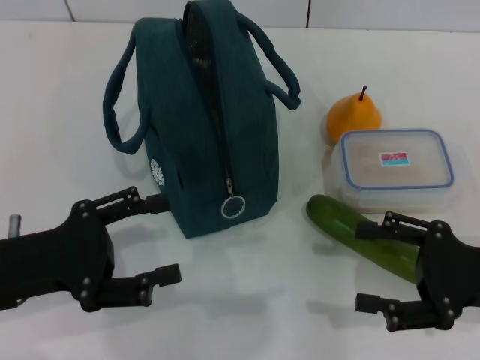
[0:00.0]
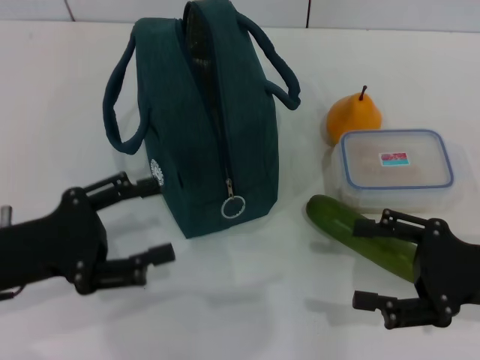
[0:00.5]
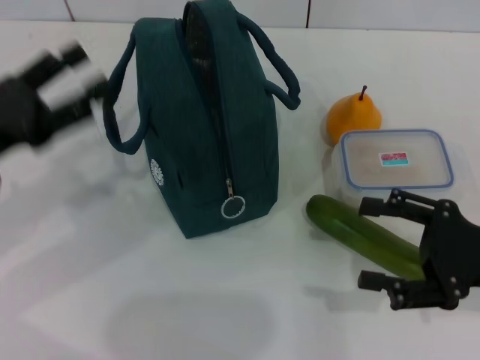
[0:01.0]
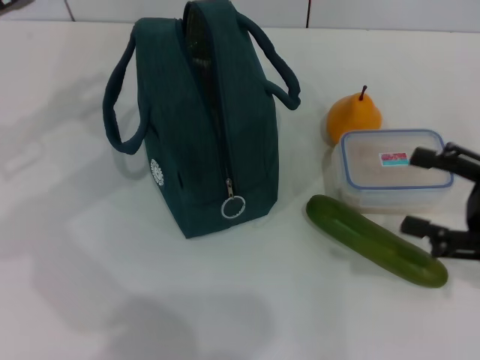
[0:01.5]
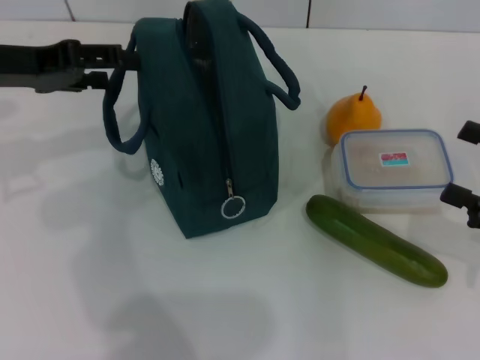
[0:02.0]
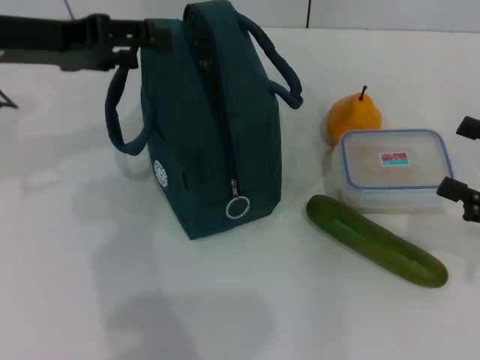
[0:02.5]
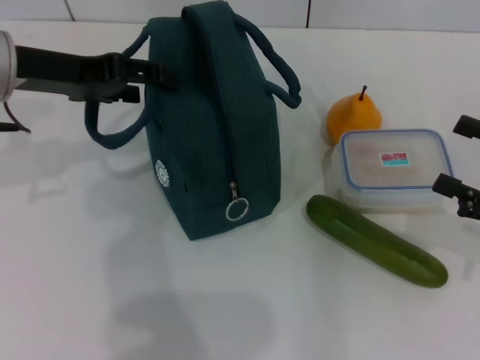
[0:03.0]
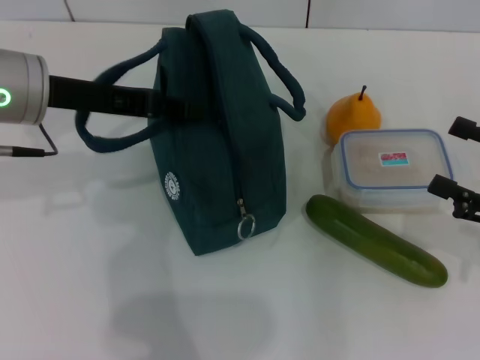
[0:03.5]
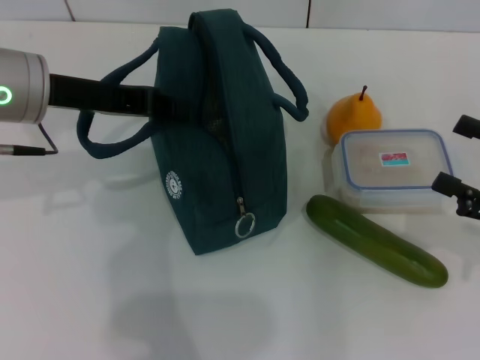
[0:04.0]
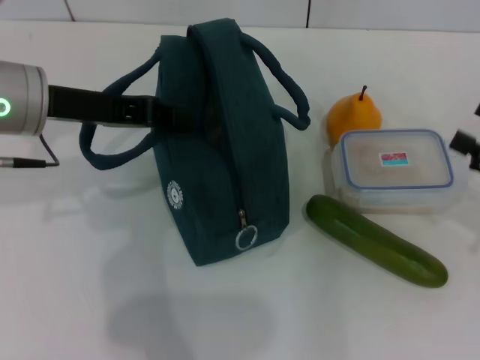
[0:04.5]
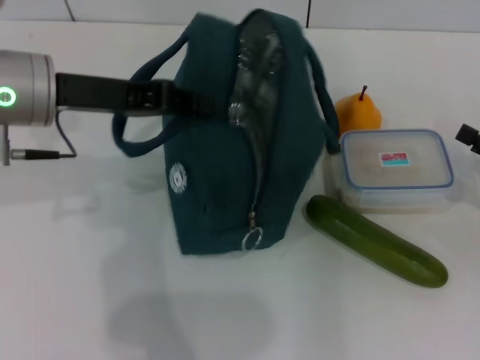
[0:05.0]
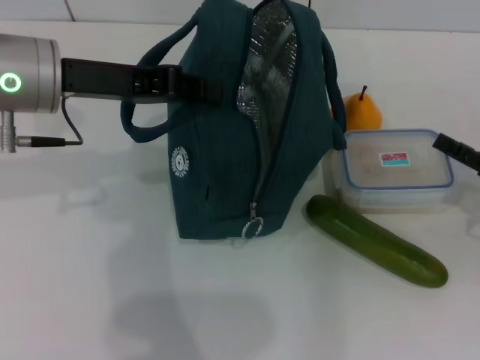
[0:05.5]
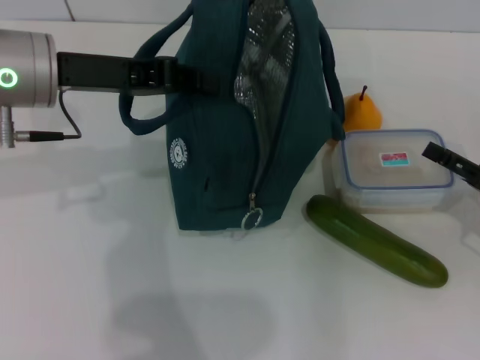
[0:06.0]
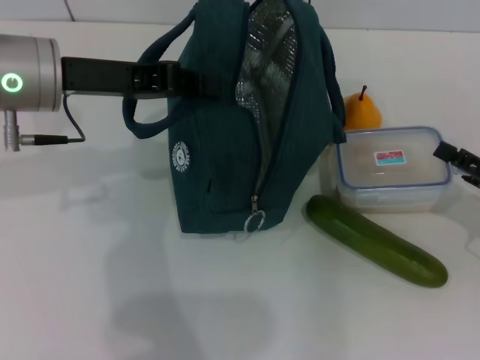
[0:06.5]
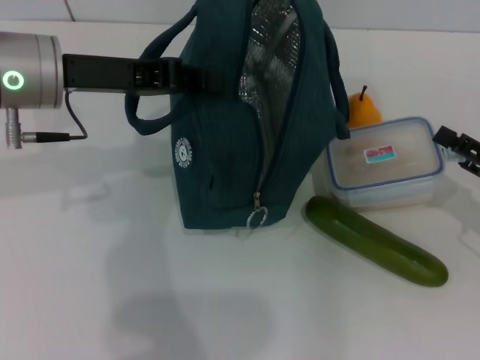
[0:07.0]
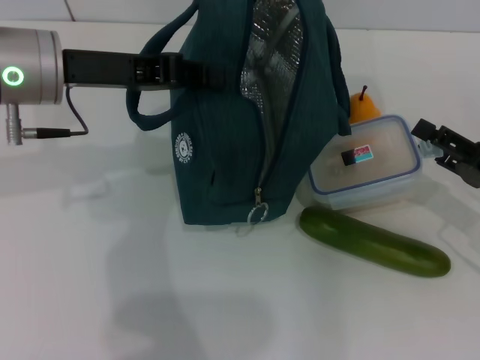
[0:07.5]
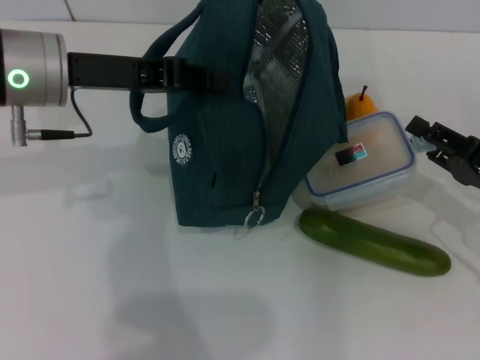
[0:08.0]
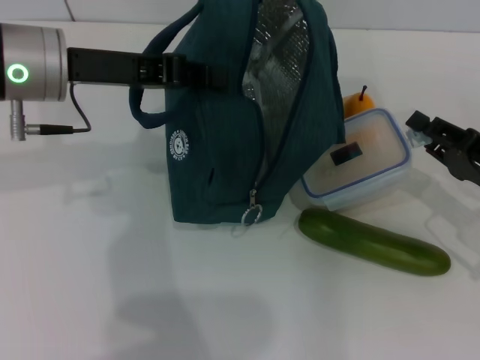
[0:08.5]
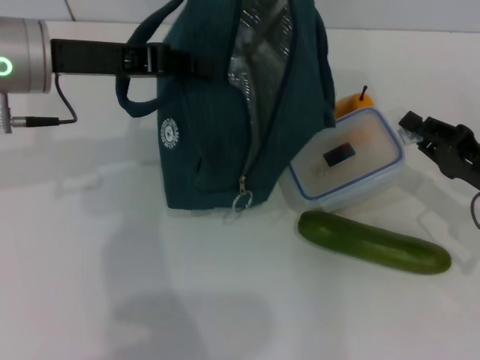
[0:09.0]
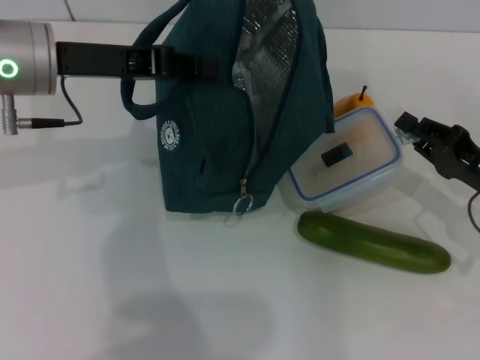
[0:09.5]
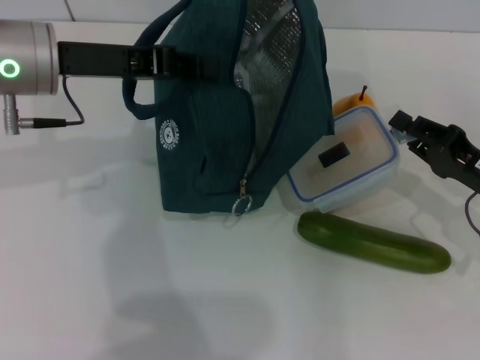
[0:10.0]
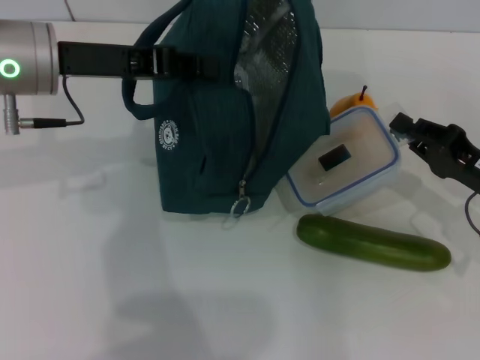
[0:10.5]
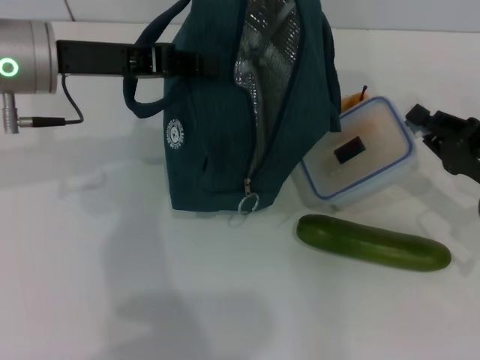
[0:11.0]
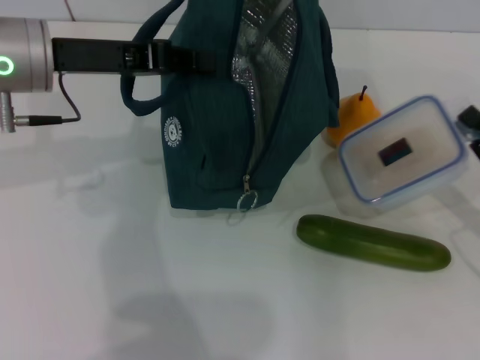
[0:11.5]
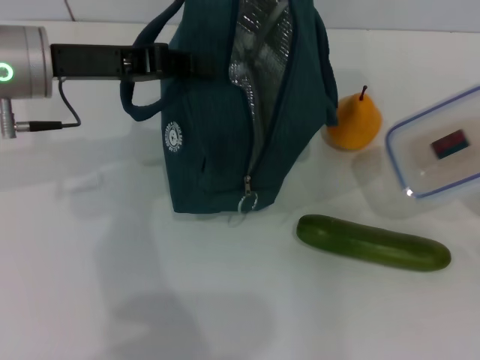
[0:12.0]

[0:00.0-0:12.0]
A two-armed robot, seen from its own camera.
Step, 0:00.0 to 0:03.5: Hold the lunch bag with your left hand.
Step, 0:04.0 to 0:10.5: Pick up the lunch box with your right hand.
0:00.0 to 0:02.0: The left gripper heads forward and upward, covering about 15 cm; the right gripper is displaced to the right by some 5 cm.
0:02.0 to 0:04.0: The left gripper moves to the right, roughly 5 cm, and closes its fingers.
0:04.0 to 0:06.0: The right gripper travels downward by some 5 cm.
0:06.0 to 0:08.0: The grippers make only small movements.
0:08.0 to 0:10.0: The right gripper closes up.
0:10.0 to 0:12.0: The right gripper is displaced backward and to the right by some 10 cm.

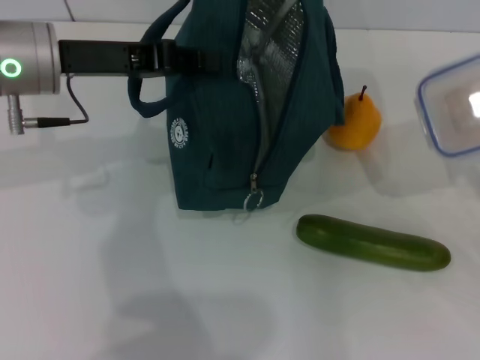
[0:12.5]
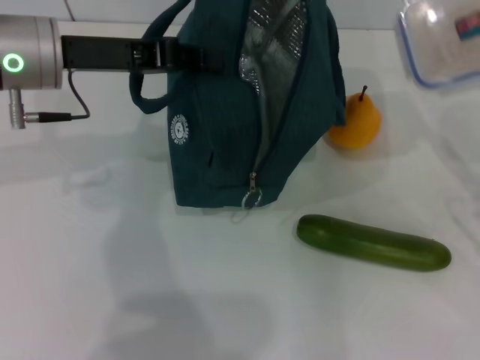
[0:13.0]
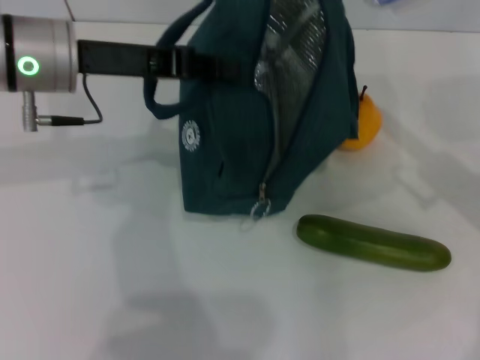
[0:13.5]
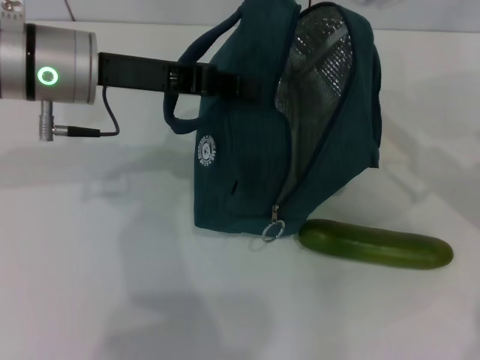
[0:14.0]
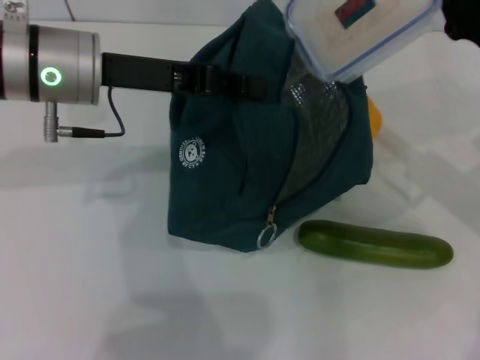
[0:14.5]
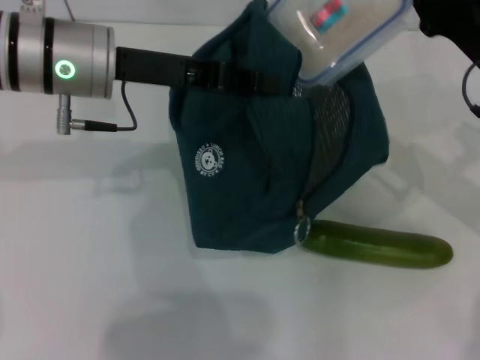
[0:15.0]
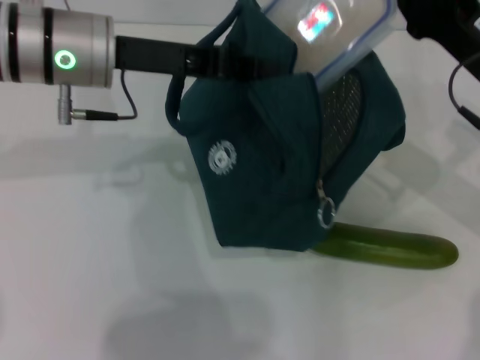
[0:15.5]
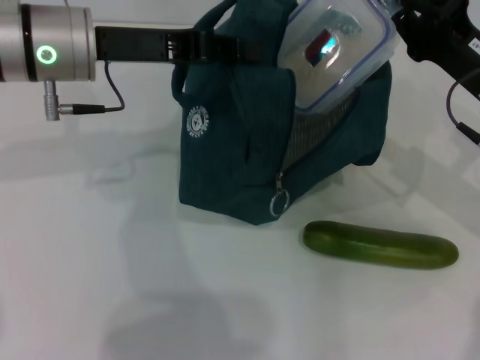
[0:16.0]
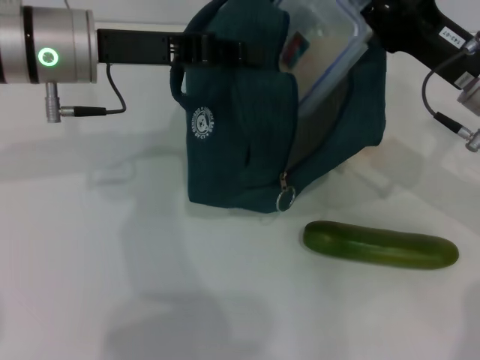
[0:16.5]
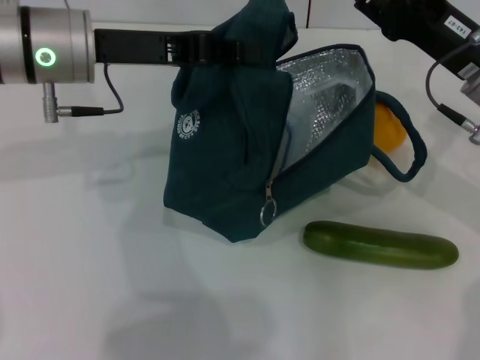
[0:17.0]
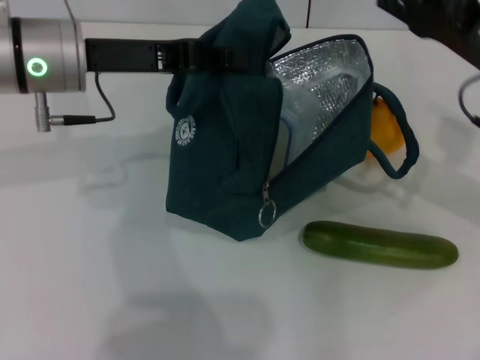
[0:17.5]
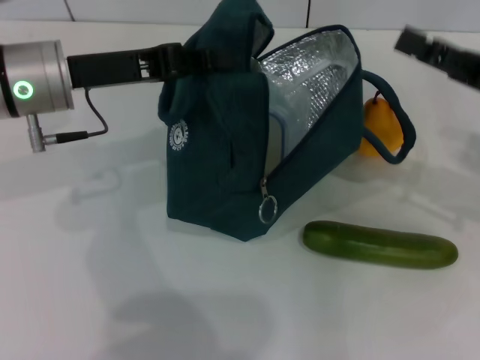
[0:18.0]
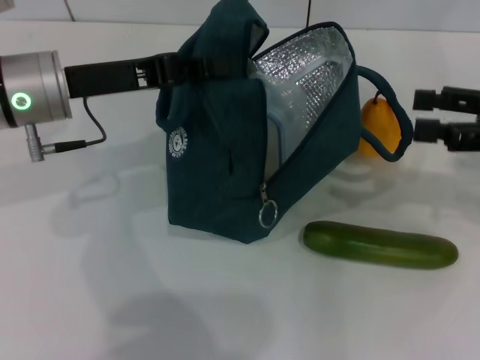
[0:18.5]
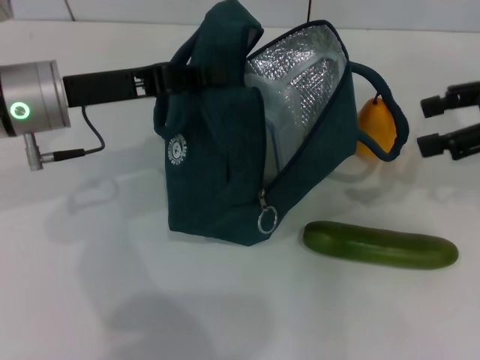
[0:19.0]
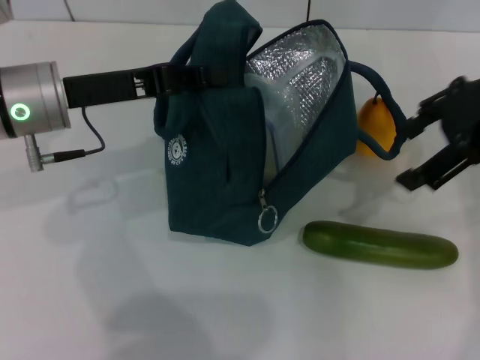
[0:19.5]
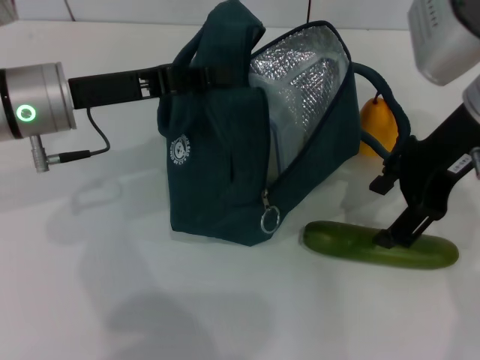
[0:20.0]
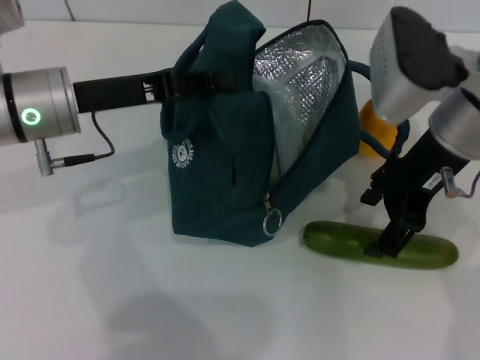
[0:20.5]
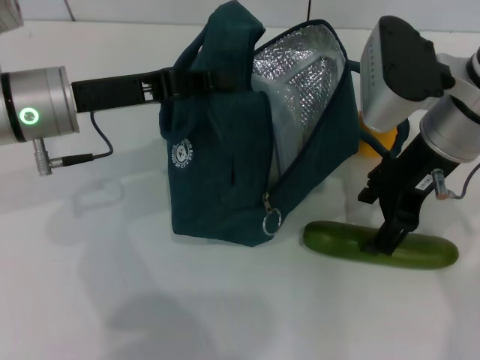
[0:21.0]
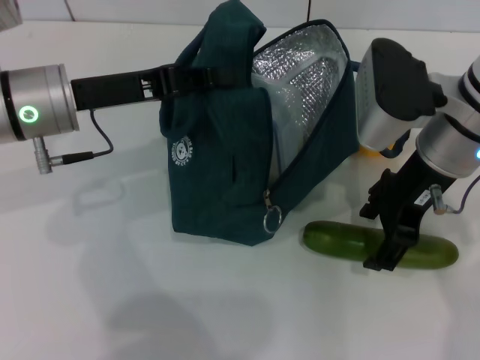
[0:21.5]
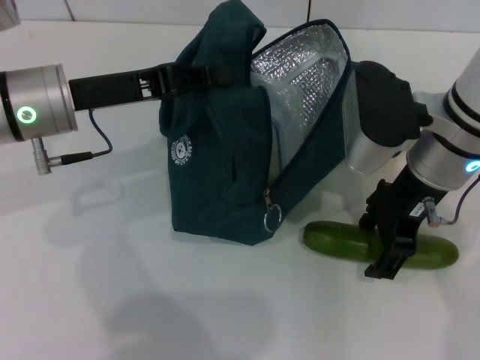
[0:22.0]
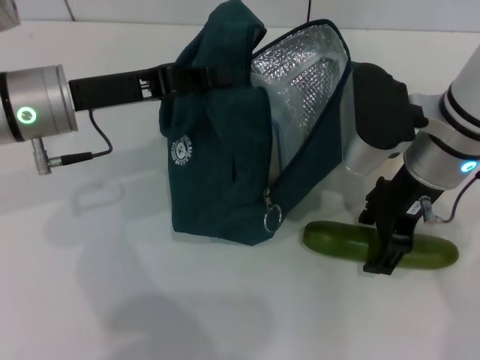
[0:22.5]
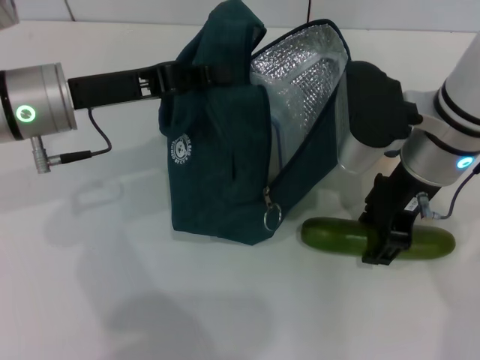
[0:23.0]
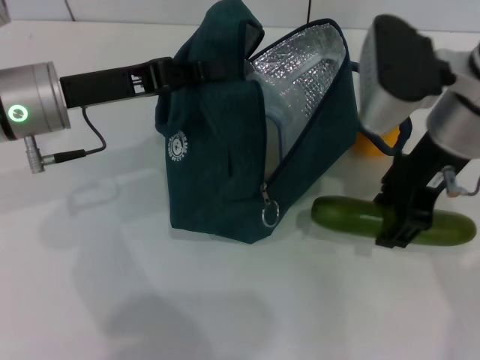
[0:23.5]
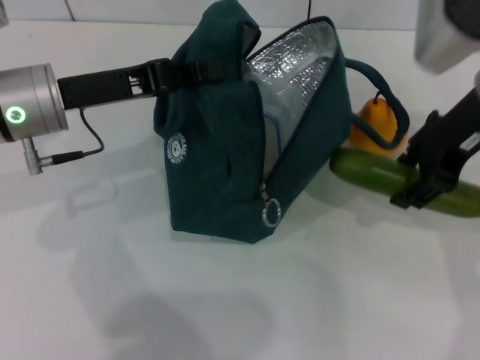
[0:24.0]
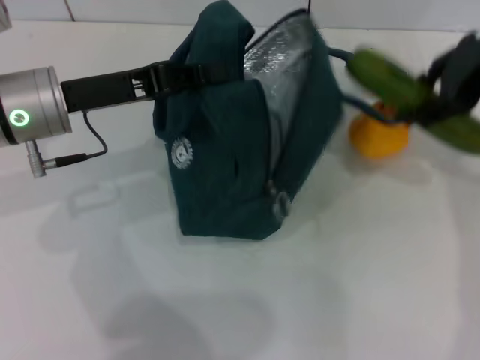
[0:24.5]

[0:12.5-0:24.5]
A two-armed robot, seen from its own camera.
Step, 0:12.5 to 0:17.0: Place the lunch box into the lunch bag with your right hand.
Step, 0:17.5 to 0:22.5: Pick up the cucumber with your right hand.
0:12.5 to 0:14.5: The right gripper moves forward, to the left and upward, approximately 15 cm.
0:16.5 to 0:18.5: The right gripper travels to the right by some 10 cm, and opens up, while the left gripper changes place by some 5 cm.
0:18.5 to 0:20.5: The right gripper goes about 15 cm to the left.
0:20.5 to 0:22.5: The grippers move only a little.
0:22.5 to 0:24.5: The right gripper moves upward and to the right, about 15 cm.

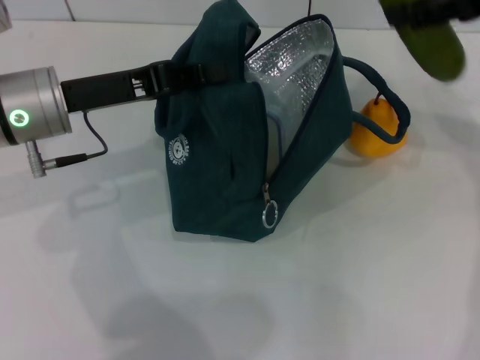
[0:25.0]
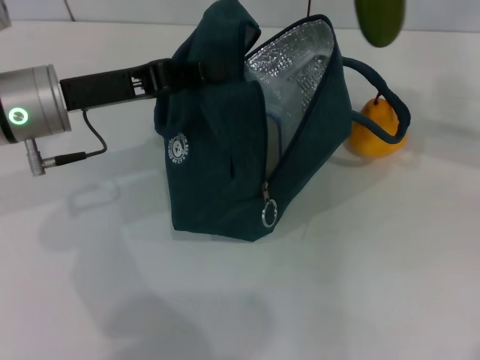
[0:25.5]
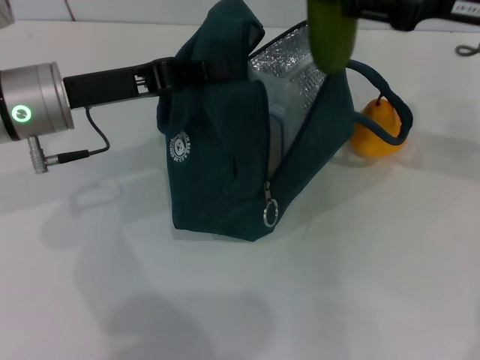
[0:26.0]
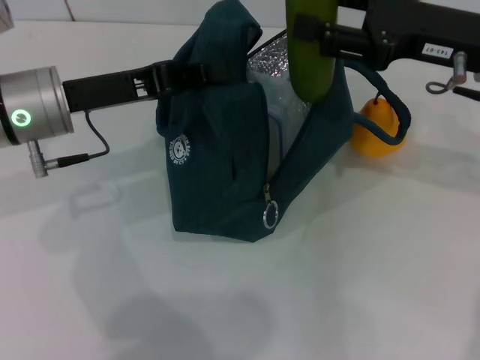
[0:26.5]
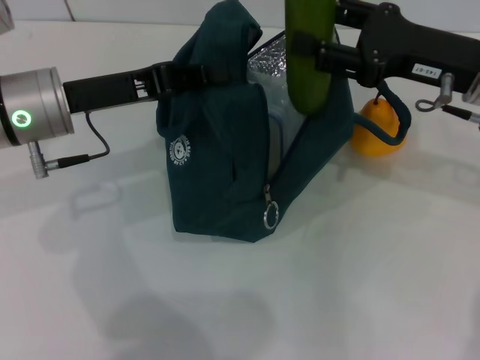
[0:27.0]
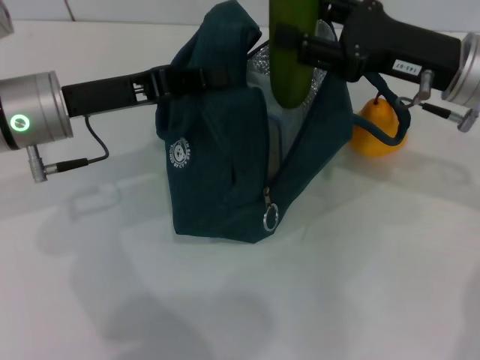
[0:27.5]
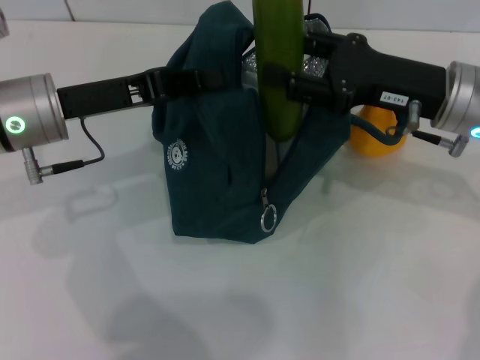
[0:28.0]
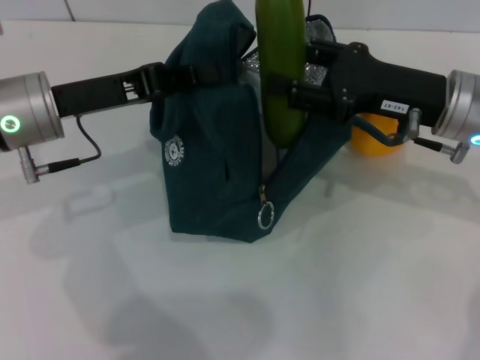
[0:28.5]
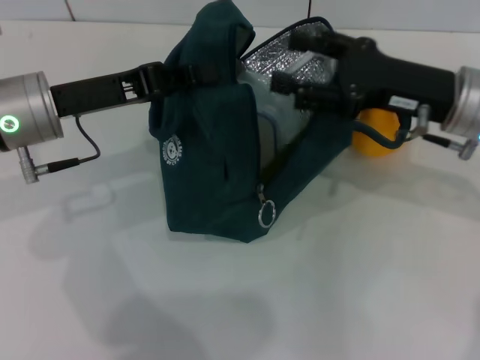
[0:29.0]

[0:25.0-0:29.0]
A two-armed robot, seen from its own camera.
0:25.0 to 0:27.0: The right gripper moves downward, some 15 cm.
0:27.0 to 0:29.0: The grippers move only a little.
